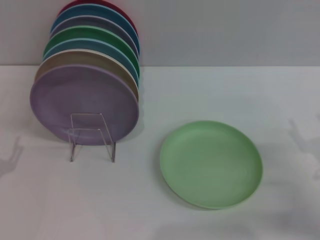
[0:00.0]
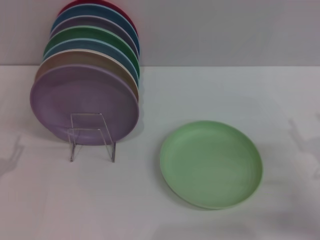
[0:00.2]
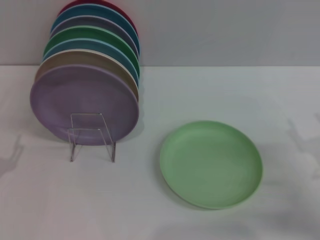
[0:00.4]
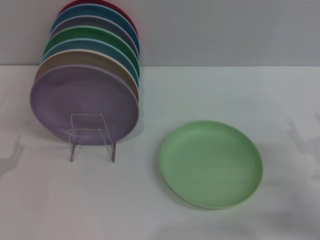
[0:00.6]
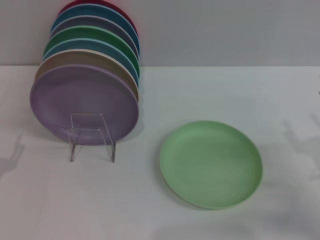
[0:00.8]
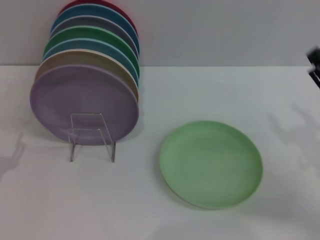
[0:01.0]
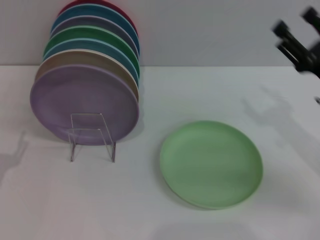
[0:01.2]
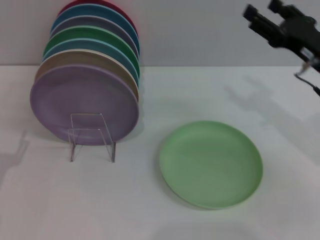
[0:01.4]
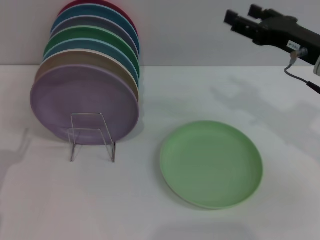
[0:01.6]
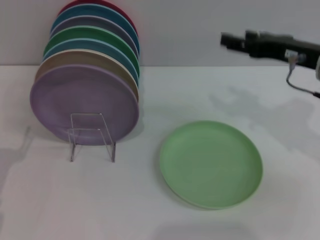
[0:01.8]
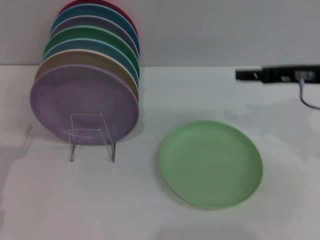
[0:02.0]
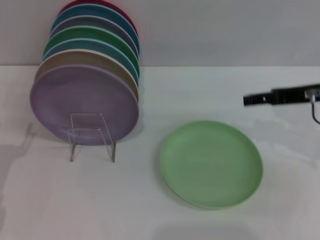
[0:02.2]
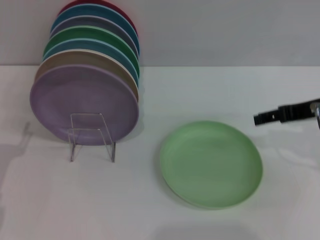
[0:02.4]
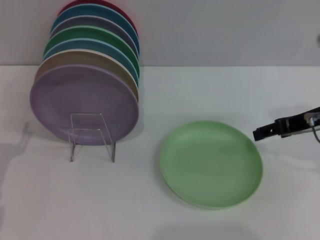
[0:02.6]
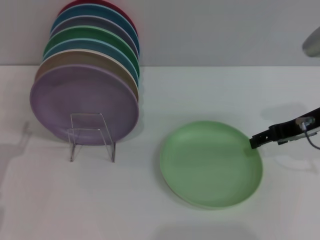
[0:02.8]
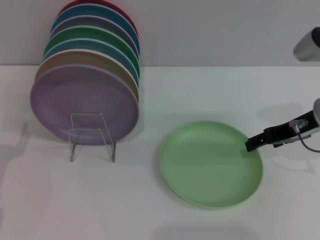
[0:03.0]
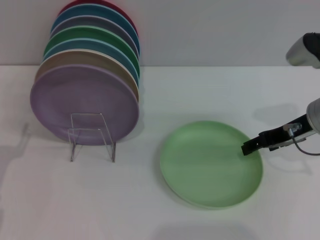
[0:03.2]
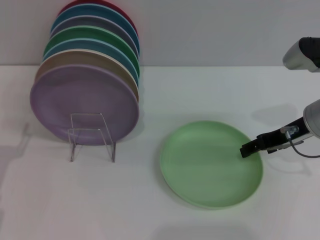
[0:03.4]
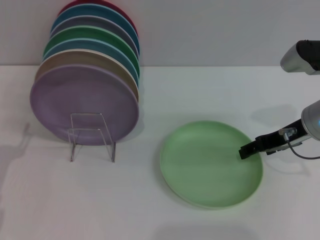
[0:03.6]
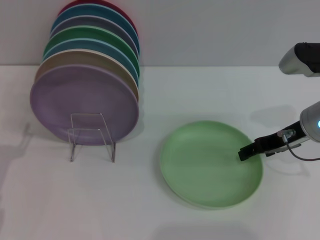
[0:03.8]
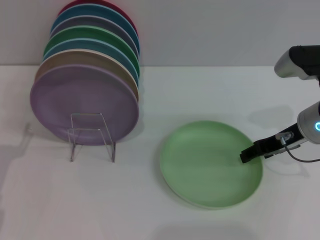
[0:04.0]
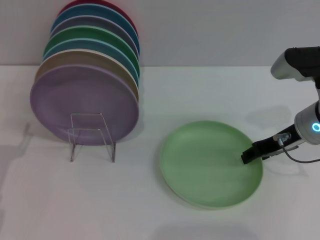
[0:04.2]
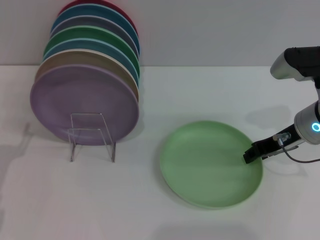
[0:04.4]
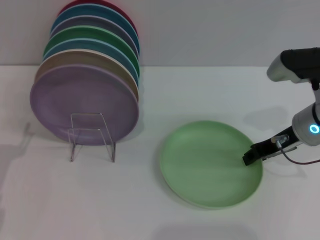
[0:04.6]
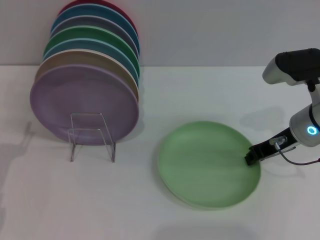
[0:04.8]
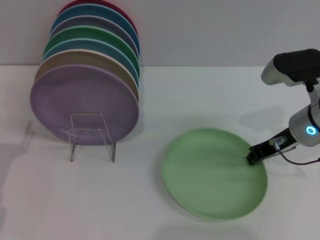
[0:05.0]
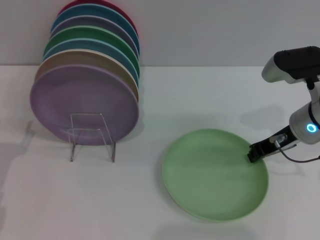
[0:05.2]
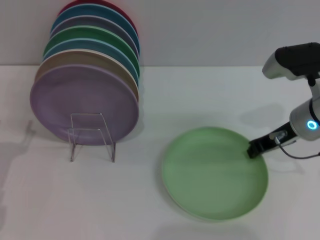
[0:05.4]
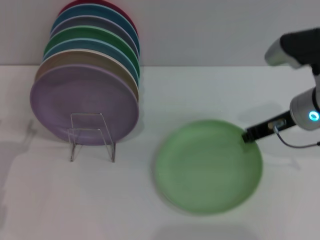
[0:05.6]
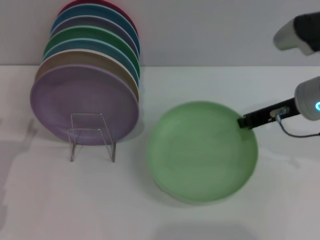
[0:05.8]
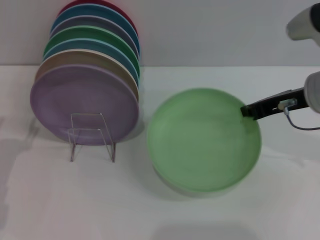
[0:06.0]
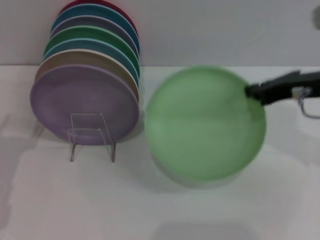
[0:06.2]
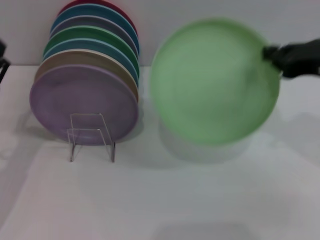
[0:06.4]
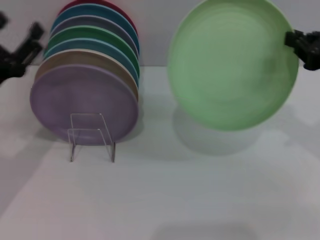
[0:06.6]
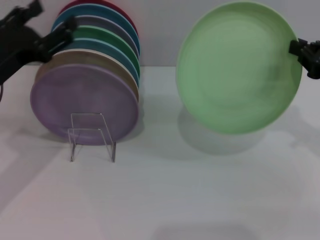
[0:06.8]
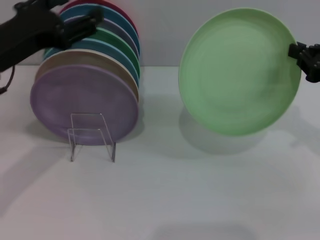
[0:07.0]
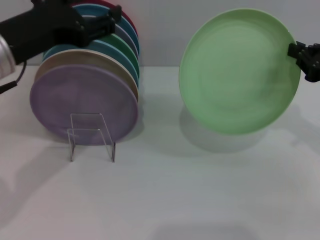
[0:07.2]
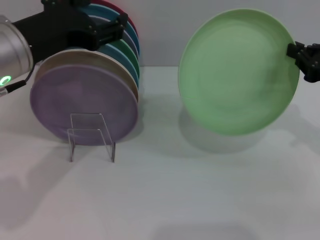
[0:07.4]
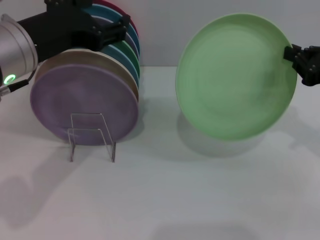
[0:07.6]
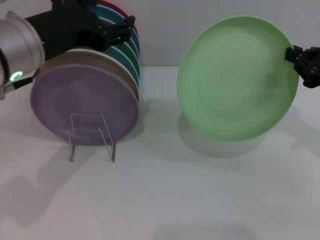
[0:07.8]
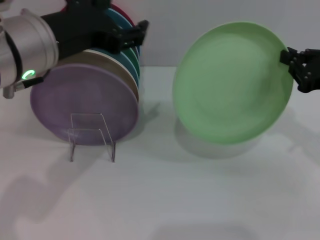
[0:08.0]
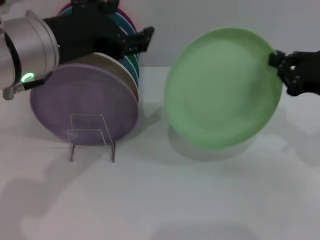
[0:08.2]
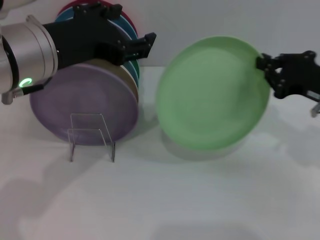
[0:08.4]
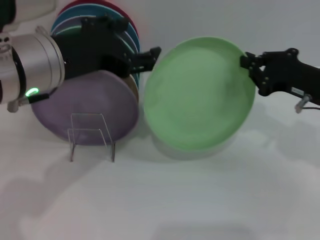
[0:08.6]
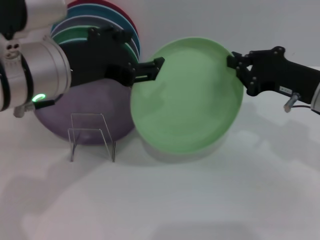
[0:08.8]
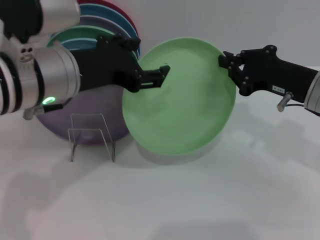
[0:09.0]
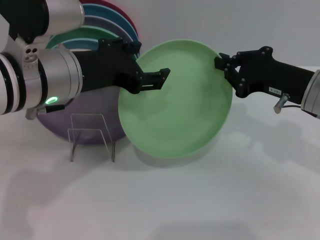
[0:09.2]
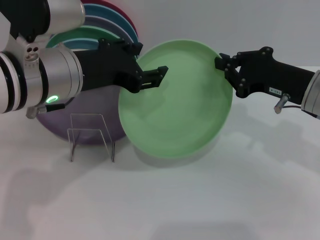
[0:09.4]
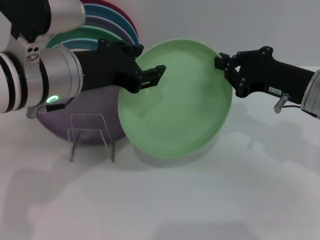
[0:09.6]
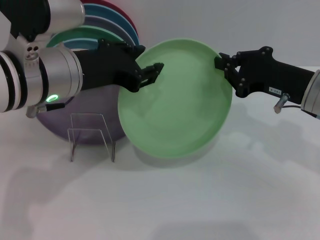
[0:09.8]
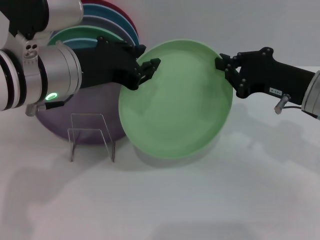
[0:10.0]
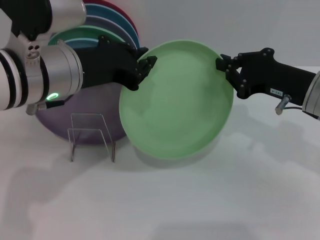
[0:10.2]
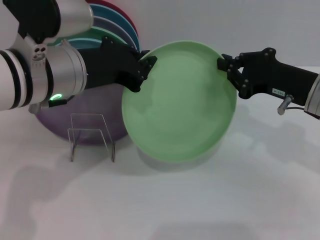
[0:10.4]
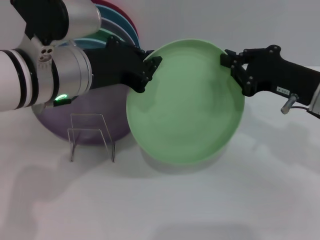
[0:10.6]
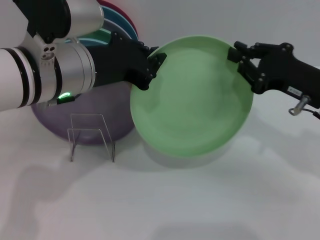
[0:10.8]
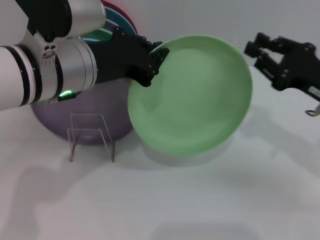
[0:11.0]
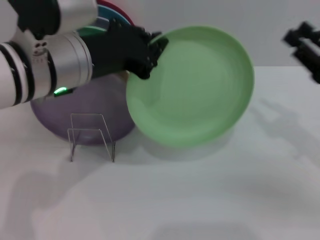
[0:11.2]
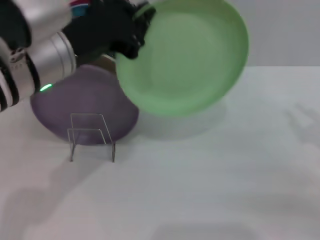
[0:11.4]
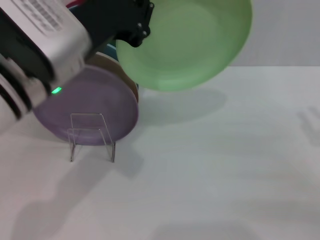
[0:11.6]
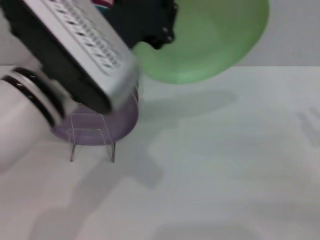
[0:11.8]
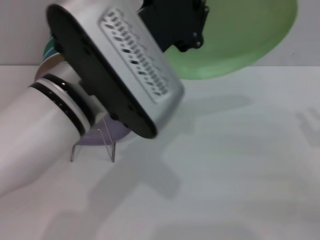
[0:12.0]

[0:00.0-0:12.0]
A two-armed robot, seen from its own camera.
Task of the whole recording: Grip the plate with one hand, pass it to the other, then set it on the shelf.
Step, 0.0 to 6.4 s: Pick up the plate with the right gripper.
Step, 6.6 to 11.4 s: Pass the plate from the right gripper to the left gripper.
0.0 to 1.6 s: The right gripper is displaced upward, forward and to the left by approximately 20 cm.
3.0 to 4.4 s: The right gripper closes.
4.4 to 6.0 s: The right gripper goes some 5 cm upward, and closes up.
6.0 to 7.6 s: The left gripper shifts roughly 20 cm upward and to the right, while the right gripper moves to the right, about 10 cm.
7.6 to 9.0 s: The right gripper heads to the left, covering approximately 5 cm.
9.0 to 10.4 s: The left gripper closes.
10.4 to 12.0 s: The left gripper heads to the right and backward, covering some 10 cm, while the right gripper goes some 15 cm to the right and backward, and opens up.

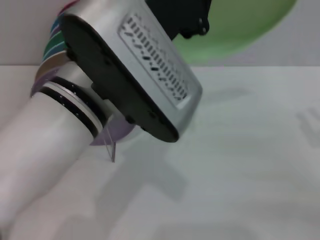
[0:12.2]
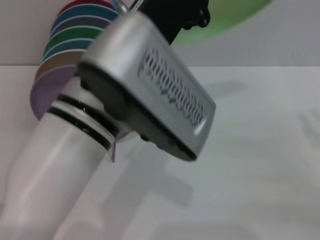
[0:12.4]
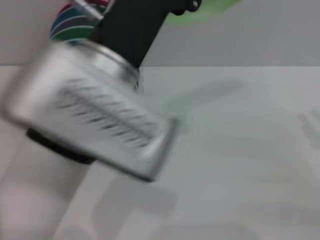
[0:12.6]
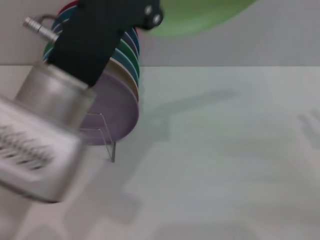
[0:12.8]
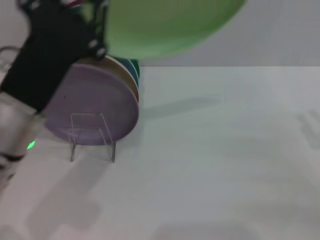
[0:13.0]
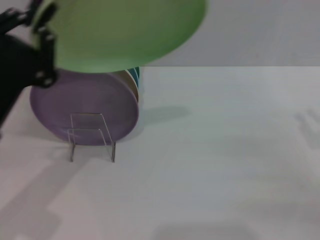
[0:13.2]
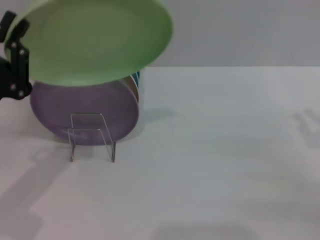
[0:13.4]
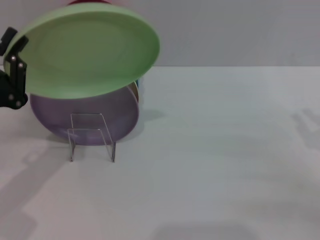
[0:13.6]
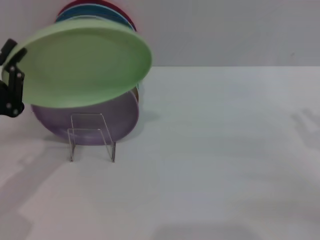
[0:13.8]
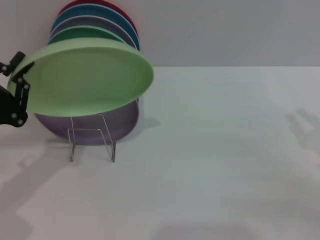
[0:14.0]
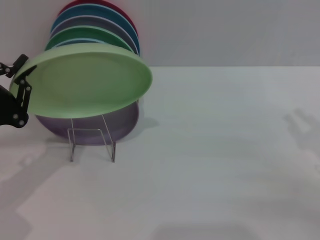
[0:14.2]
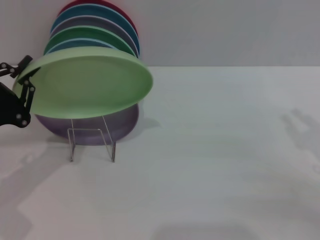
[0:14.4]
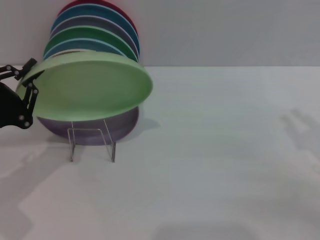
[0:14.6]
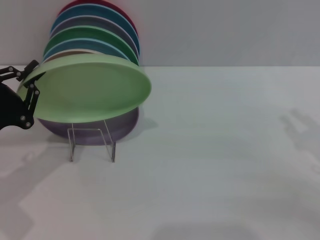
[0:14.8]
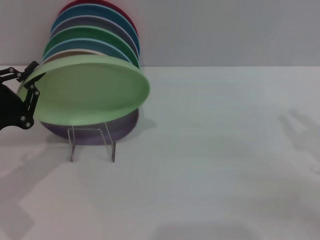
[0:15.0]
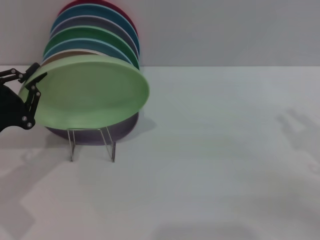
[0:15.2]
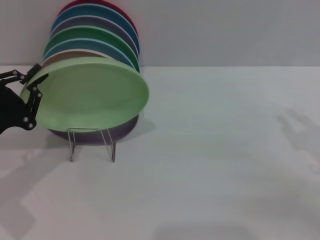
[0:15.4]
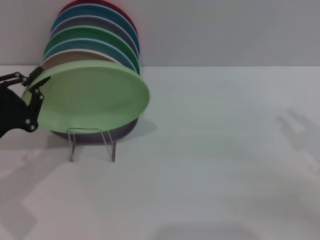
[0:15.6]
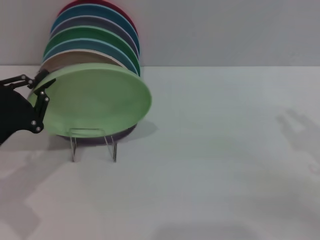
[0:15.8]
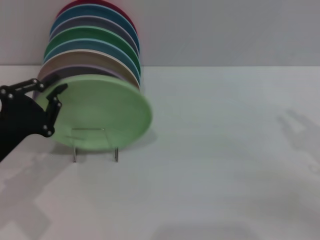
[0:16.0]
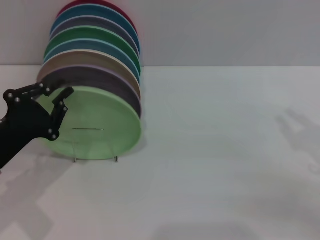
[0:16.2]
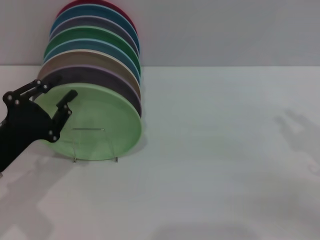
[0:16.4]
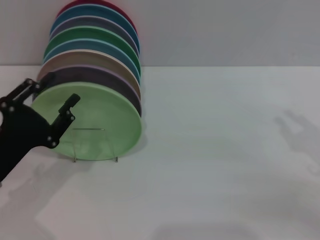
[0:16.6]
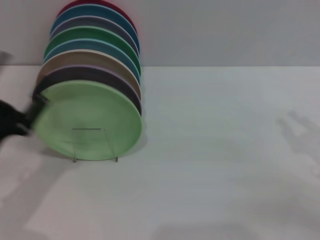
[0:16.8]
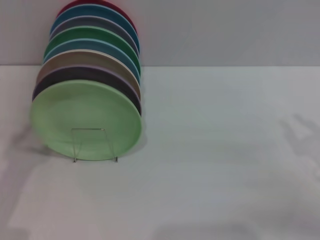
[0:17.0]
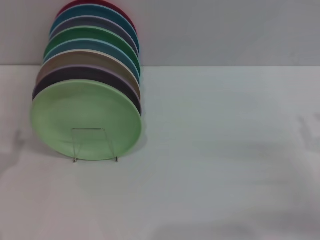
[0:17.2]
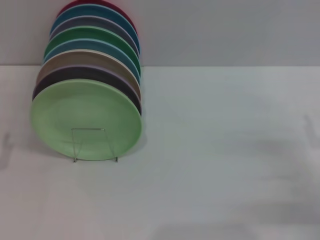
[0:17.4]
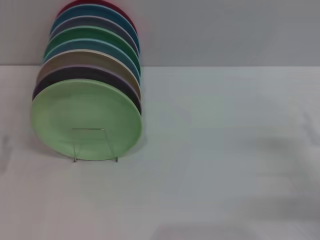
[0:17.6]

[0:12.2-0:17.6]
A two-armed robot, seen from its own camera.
Task of the whole recording: Grip the plate with one hand, pass it to the other, then set it on the shelf.
Step, 12.2 to 16.2 s: Place the plate on the shelf with the left gripper.
12.2 to 13.6 s: The left gripper goes approximately 25 cm to the left and downward.
13.6 to 15.0 s: The grippers move only a little.
15.0 to 16.2 s: There are only small adjustments of the grippers.
16.2 to 17.6 s: The left gripper shifts about 10 cm backward and to the left, and opens. Meanwhile the right gripper shifts approximately 5 cm downward.

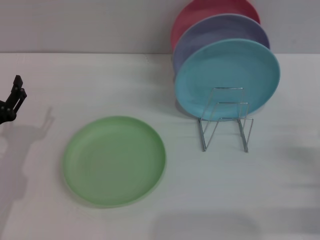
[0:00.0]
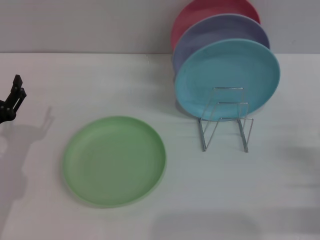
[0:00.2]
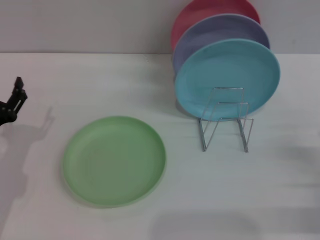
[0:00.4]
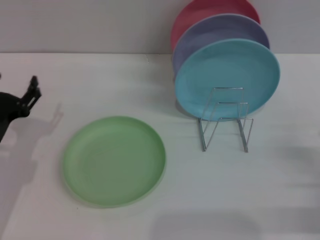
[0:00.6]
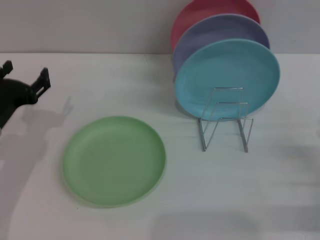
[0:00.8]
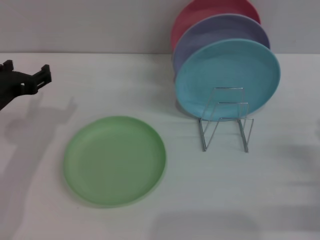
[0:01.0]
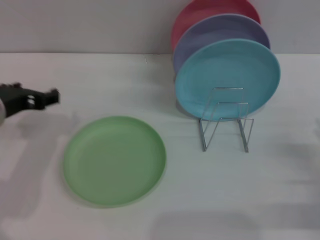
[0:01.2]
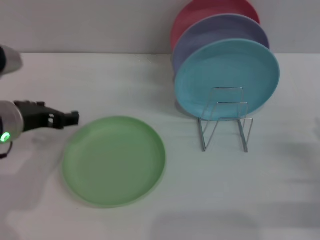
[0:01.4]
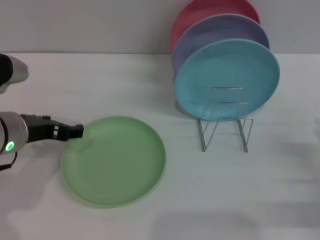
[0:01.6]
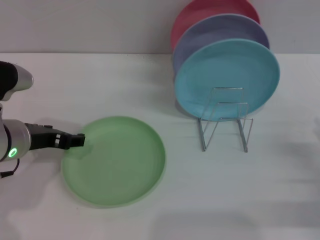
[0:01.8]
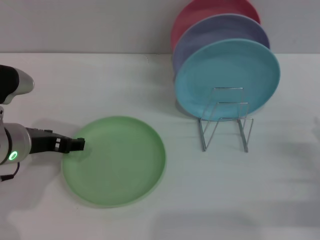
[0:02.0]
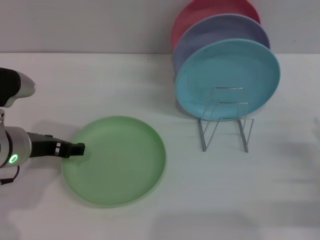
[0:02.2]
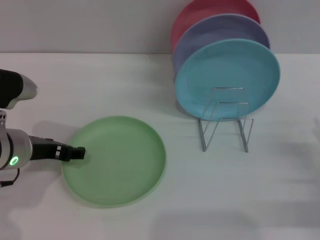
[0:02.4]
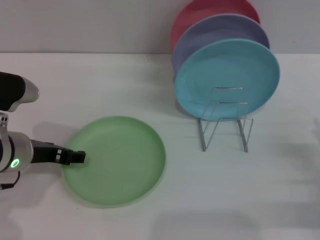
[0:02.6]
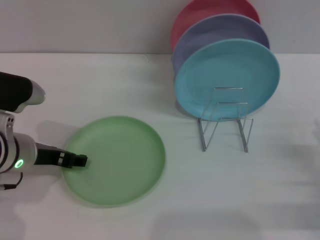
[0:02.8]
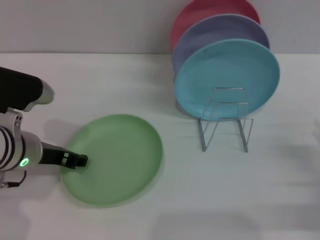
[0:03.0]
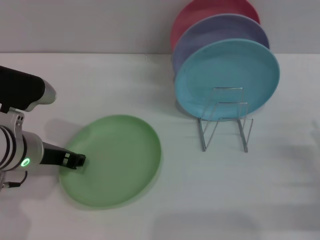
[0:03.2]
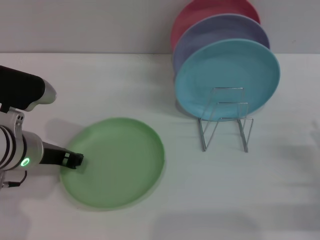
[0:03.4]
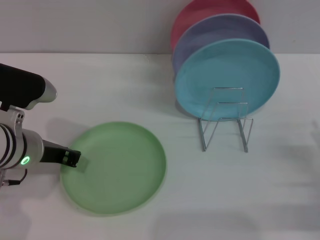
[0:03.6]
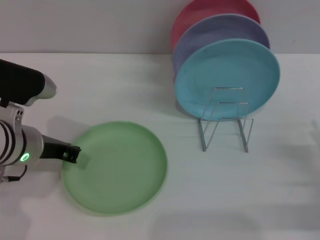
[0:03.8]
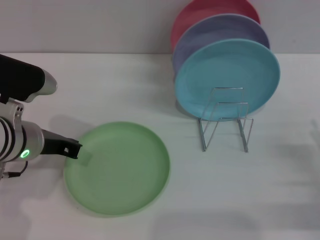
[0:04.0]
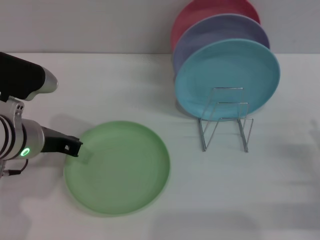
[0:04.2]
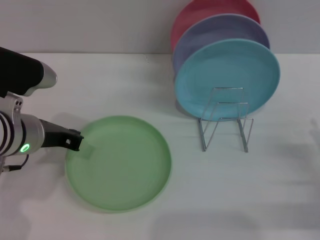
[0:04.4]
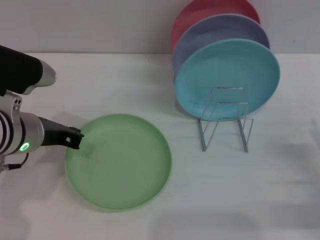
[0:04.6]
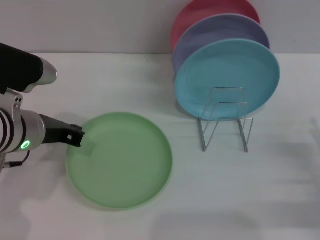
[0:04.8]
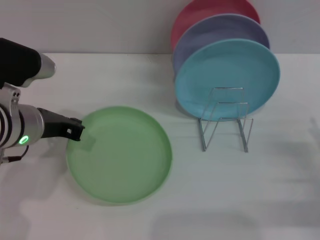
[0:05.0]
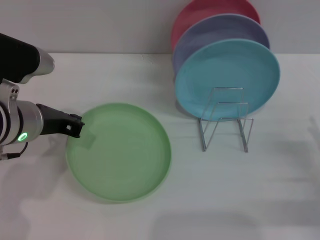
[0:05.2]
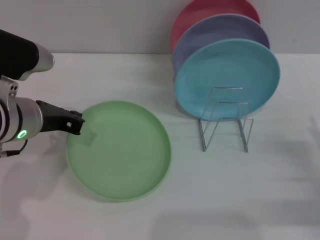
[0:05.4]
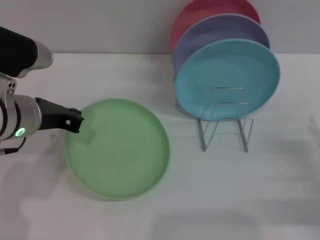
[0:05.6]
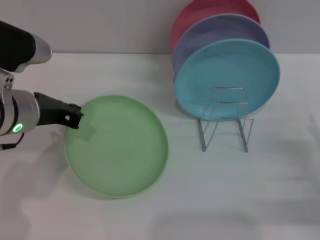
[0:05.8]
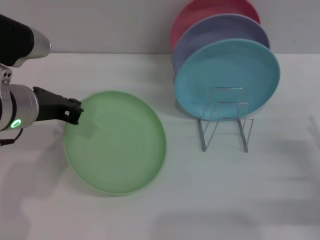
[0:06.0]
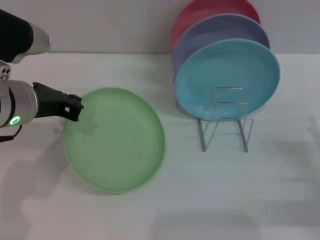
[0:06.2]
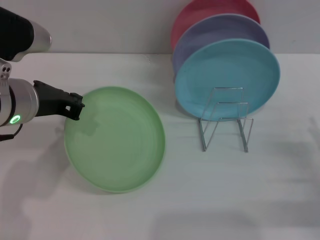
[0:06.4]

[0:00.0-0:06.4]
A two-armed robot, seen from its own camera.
Task of the whole recording: Grip the plate with one hand, pass it to the other, then set it on the shelf.
0.0 to 1.6 s: The left gripper goes approximately 10 cm upward and to the right.
1.6 to 3.2 s: The grippers make only small movements.
3.2 to 4.8 s: The left gripper closes its fingers.
4.8 to 6.4 s: The left gripper travels upward by about 5 cm.
